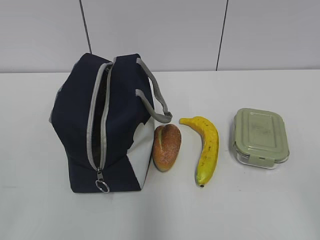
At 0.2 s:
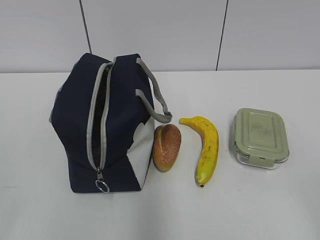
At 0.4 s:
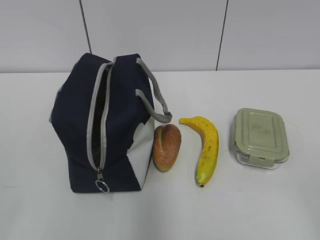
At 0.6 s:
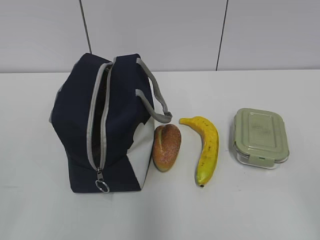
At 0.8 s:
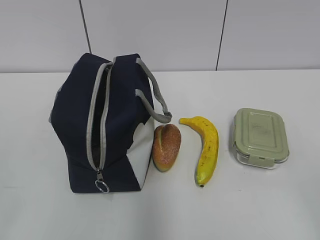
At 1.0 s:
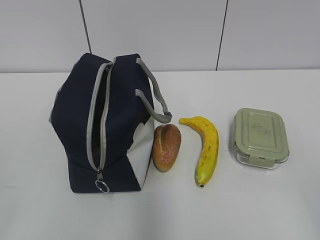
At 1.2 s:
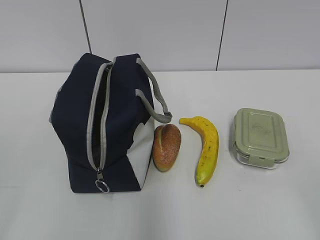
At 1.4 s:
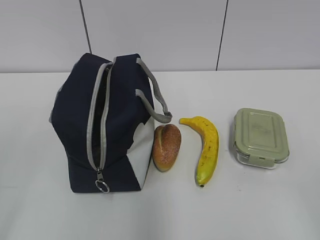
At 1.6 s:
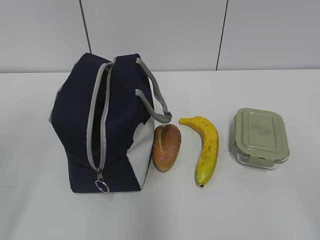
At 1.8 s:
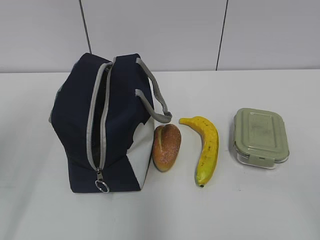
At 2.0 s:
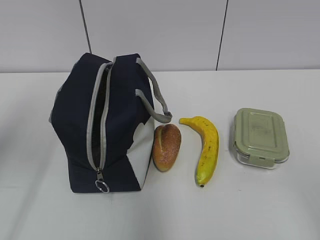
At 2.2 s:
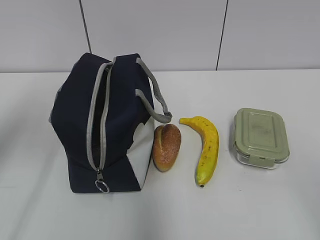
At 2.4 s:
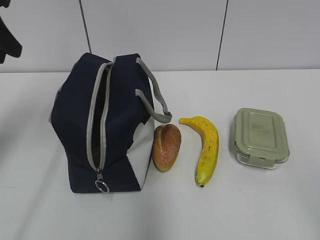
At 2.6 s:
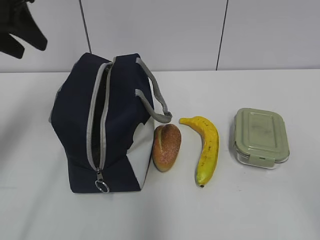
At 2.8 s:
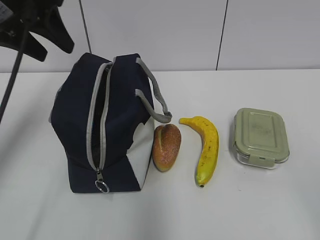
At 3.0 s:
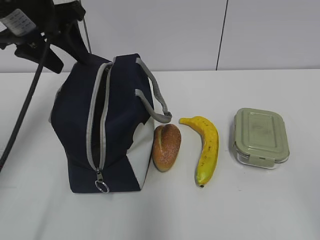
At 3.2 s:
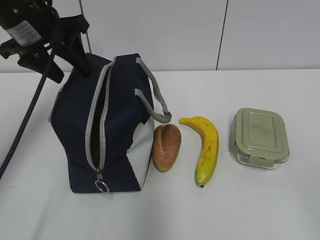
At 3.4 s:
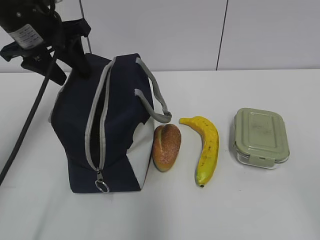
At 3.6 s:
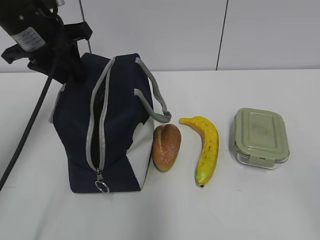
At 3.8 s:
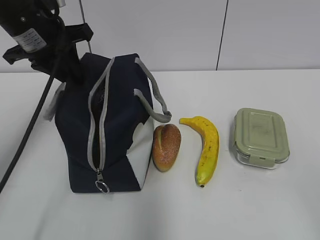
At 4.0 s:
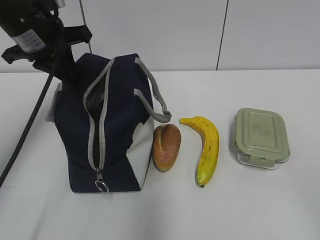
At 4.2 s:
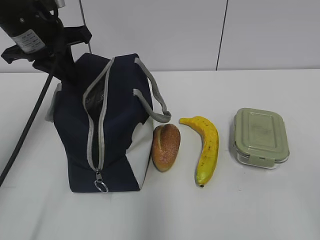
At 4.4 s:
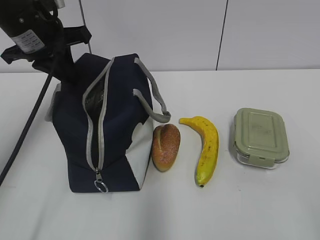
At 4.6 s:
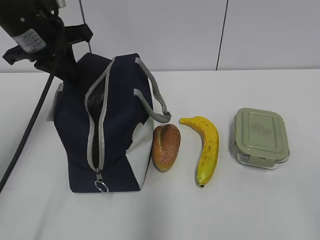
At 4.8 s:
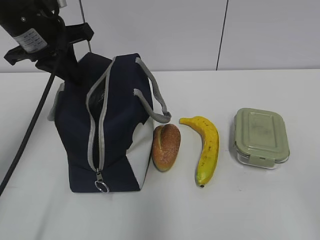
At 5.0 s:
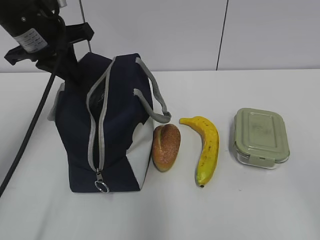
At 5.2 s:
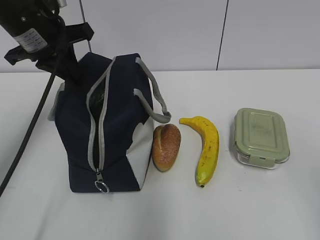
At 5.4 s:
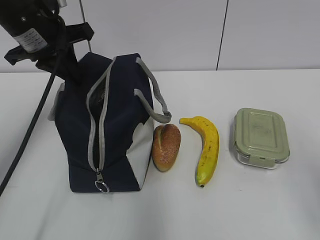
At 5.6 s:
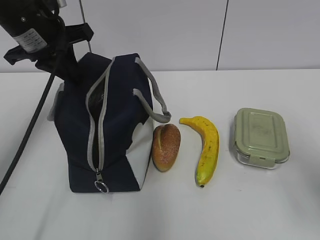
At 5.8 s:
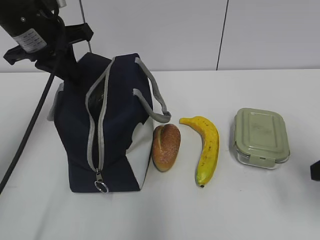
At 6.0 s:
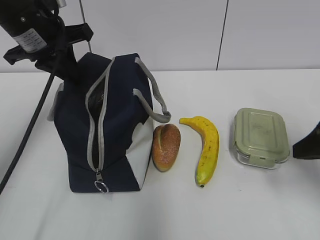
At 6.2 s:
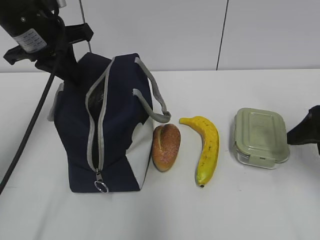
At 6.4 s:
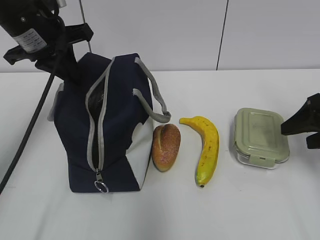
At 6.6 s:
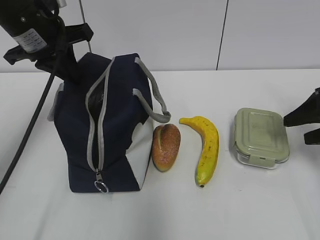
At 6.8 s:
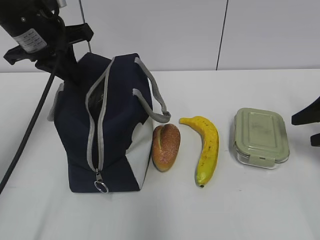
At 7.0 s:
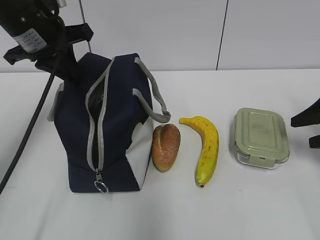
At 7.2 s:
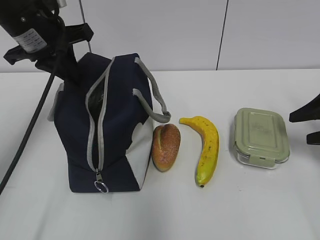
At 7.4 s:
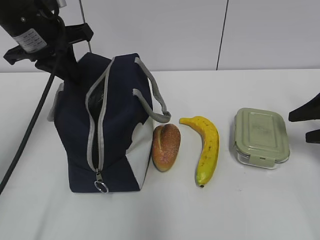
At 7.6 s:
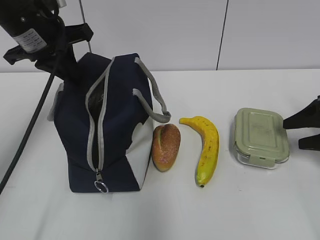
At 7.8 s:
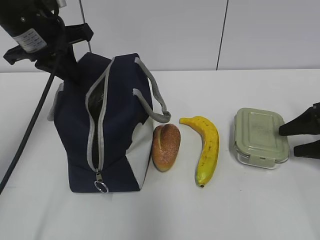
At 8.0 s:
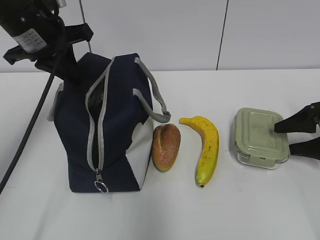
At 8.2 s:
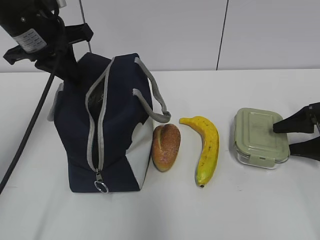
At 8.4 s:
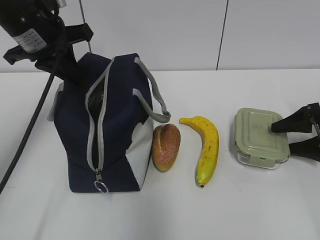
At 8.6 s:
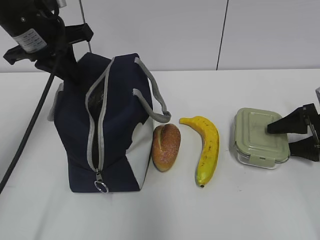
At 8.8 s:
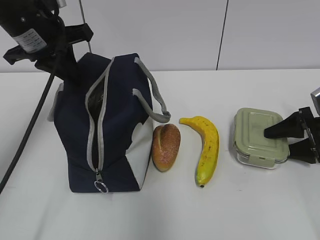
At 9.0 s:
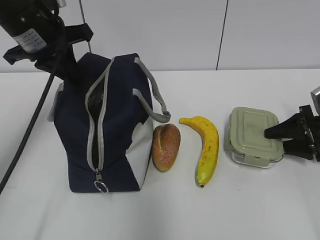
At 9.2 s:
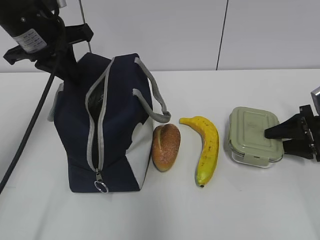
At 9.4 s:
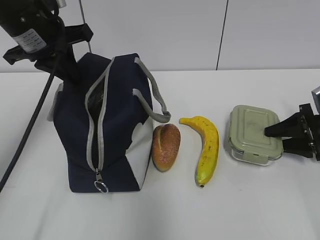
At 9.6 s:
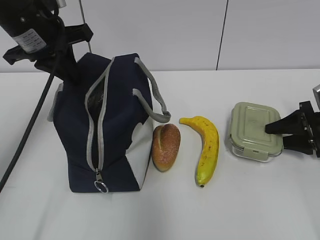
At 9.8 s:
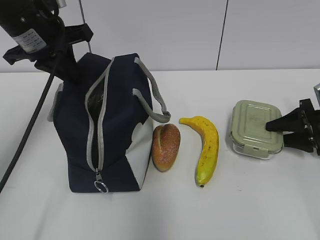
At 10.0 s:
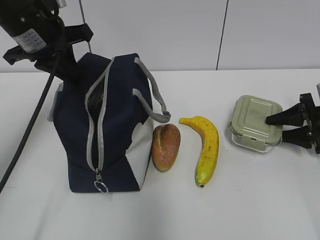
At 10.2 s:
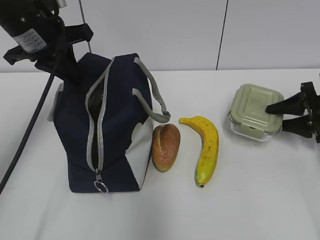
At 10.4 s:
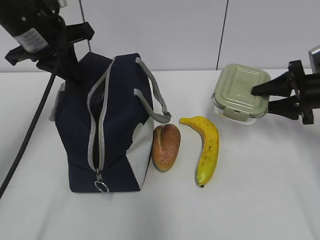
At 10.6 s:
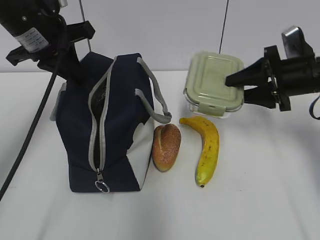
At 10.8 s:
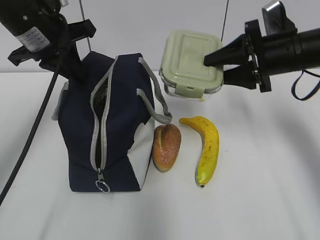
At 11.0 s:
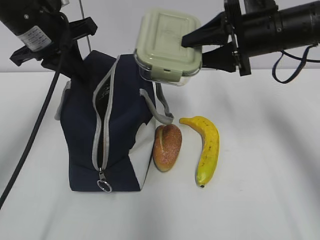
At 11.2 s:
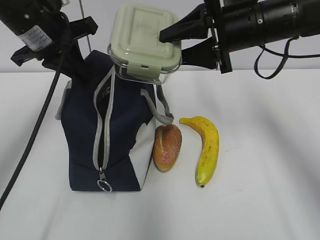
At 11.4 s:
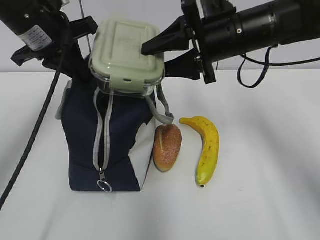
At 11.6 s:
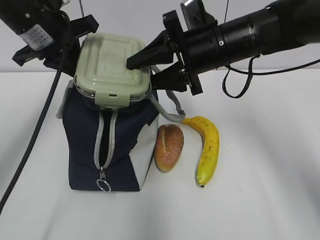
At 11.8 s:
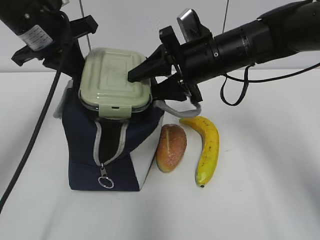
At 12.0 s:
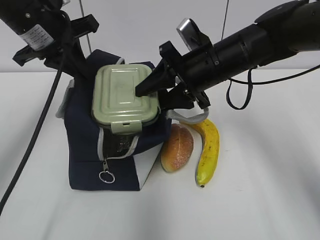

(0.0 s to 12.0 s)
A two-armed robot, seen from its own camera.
1.6 s - 3.0 s: The left gripper goes roughly 25 cm forward, and opens up.
3.0 s - 4.4 s: The left gripper closes.
4.4 s - 6.0 s: The right gripper goes approximately 20 cm forward.
6.0 s - 7.6 s: The right gripper moves forward, to the right and downward, about 15 cm.
7.6 s - 9.0 s: The right gripper travels downward by roughly 5 cm.
9.0 s - 10.4 s: The right gripper is displaced upward by approximately 5 cm.
10.4 s - 12.0 s: The right gripper heads to the left, covering some 20 cm.

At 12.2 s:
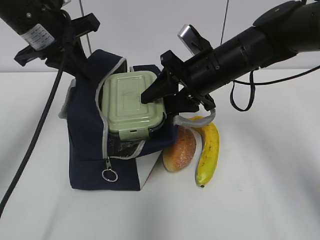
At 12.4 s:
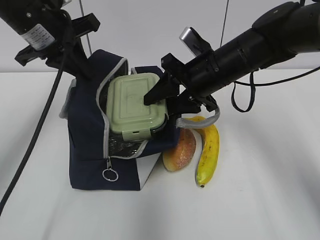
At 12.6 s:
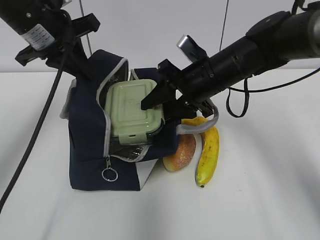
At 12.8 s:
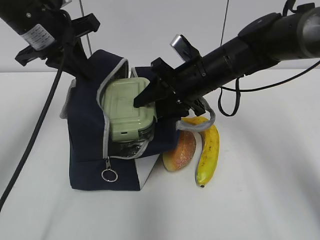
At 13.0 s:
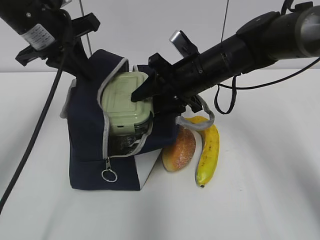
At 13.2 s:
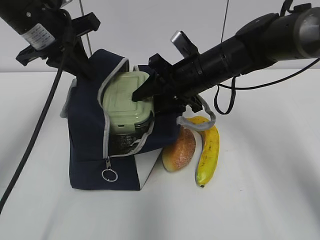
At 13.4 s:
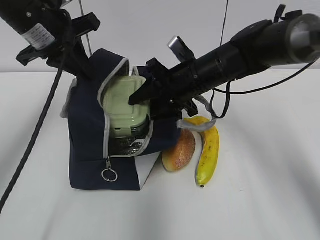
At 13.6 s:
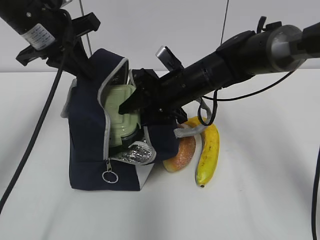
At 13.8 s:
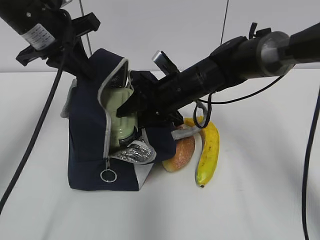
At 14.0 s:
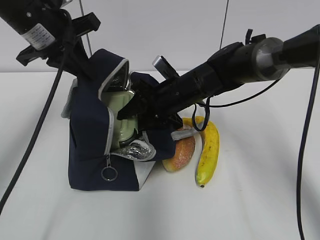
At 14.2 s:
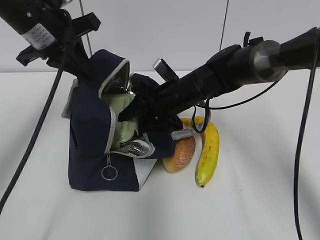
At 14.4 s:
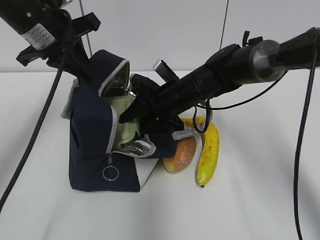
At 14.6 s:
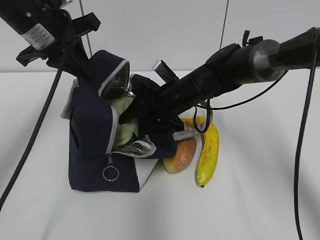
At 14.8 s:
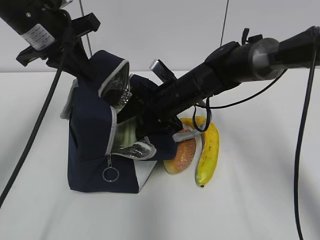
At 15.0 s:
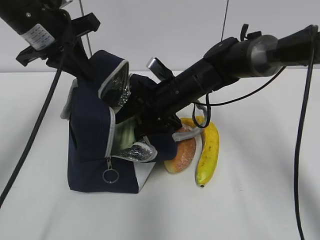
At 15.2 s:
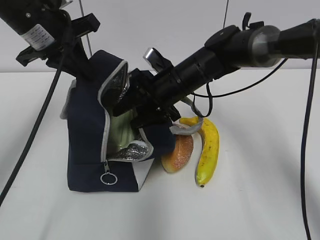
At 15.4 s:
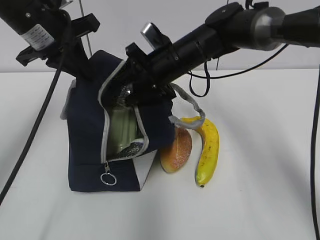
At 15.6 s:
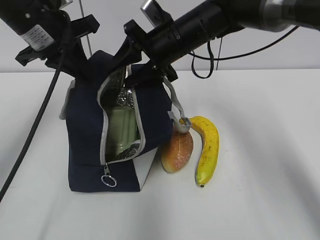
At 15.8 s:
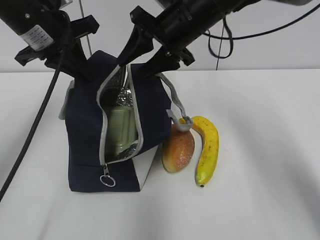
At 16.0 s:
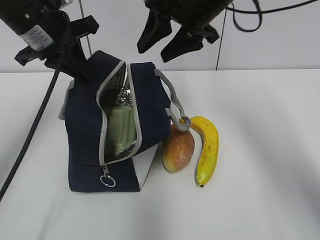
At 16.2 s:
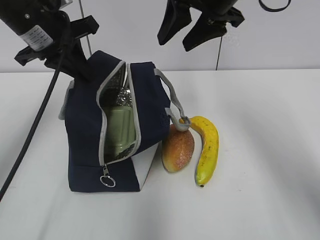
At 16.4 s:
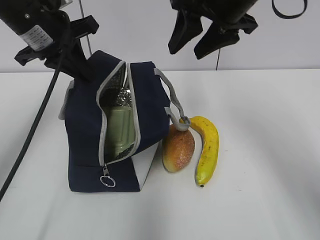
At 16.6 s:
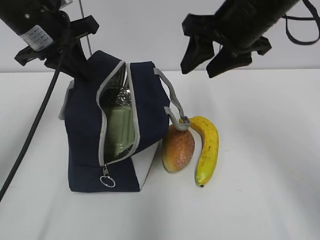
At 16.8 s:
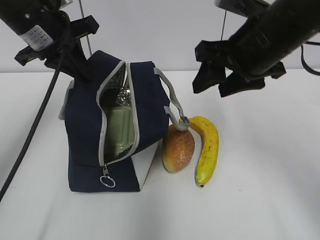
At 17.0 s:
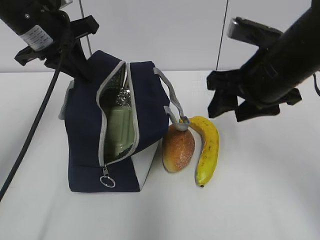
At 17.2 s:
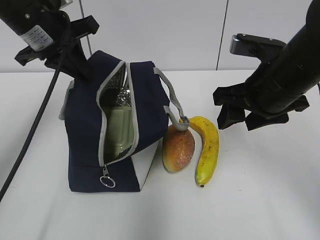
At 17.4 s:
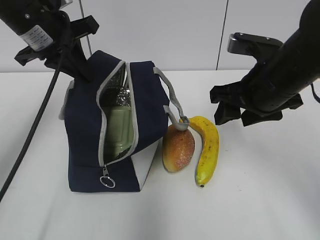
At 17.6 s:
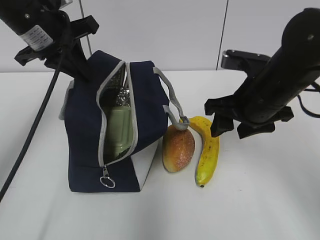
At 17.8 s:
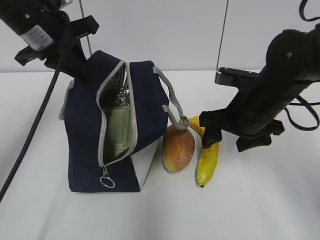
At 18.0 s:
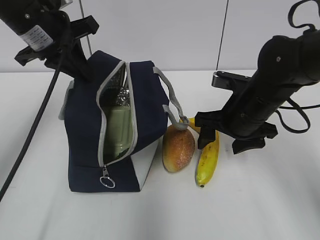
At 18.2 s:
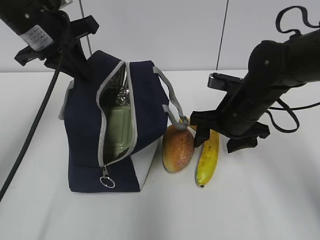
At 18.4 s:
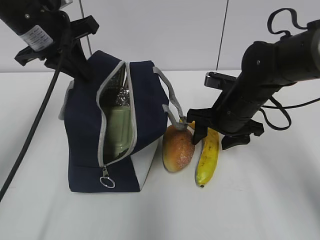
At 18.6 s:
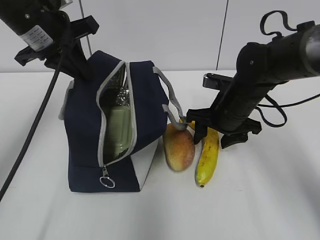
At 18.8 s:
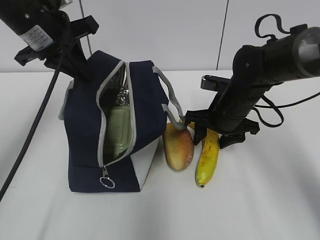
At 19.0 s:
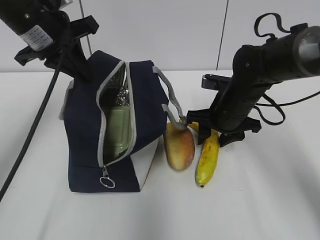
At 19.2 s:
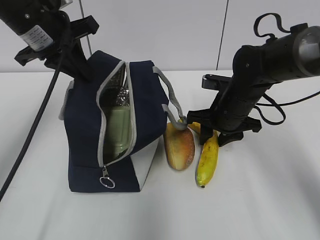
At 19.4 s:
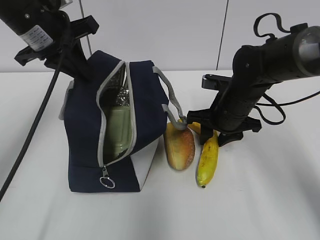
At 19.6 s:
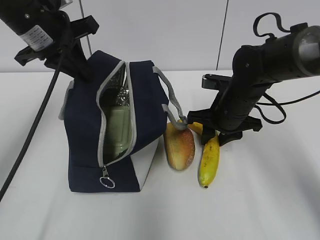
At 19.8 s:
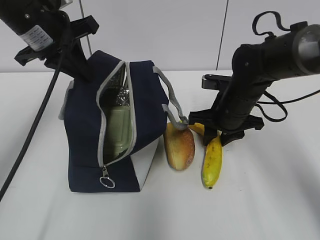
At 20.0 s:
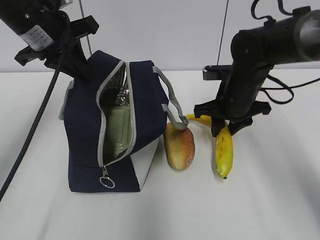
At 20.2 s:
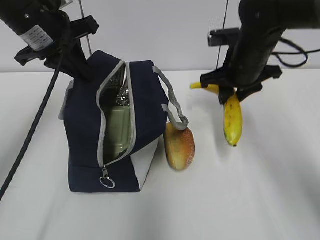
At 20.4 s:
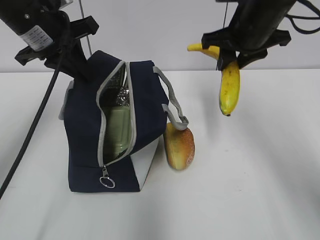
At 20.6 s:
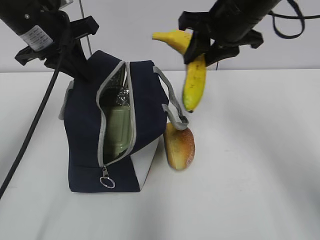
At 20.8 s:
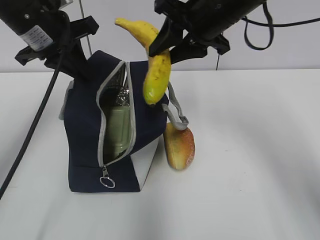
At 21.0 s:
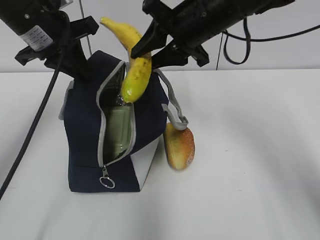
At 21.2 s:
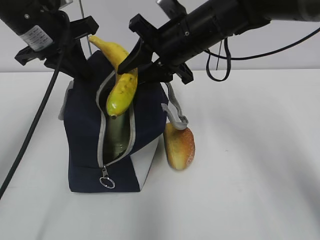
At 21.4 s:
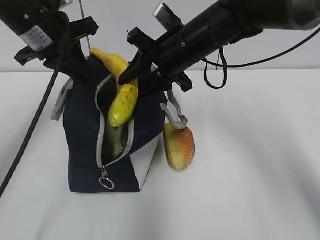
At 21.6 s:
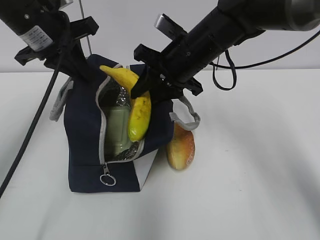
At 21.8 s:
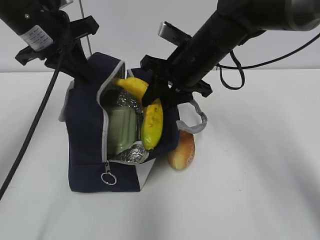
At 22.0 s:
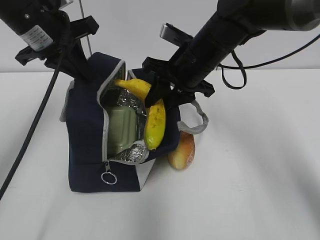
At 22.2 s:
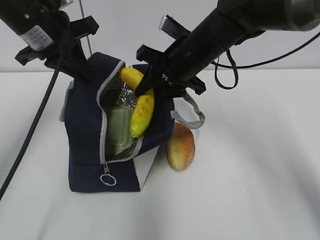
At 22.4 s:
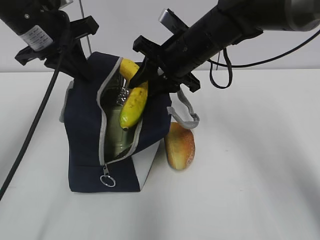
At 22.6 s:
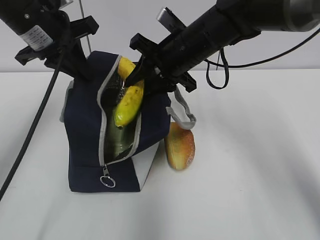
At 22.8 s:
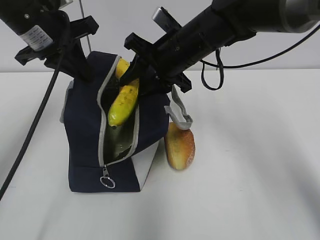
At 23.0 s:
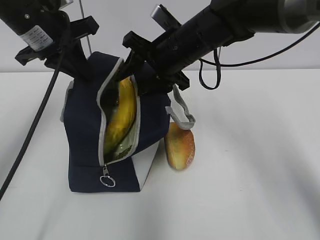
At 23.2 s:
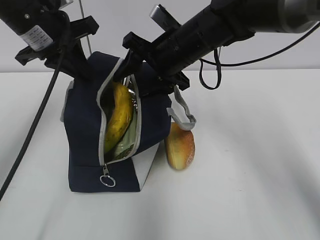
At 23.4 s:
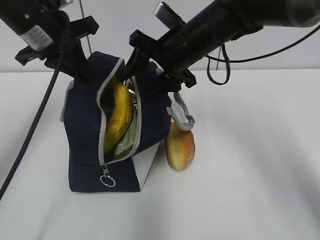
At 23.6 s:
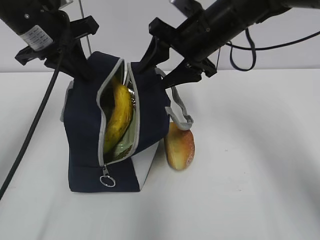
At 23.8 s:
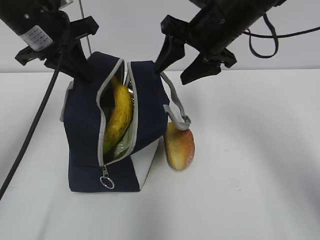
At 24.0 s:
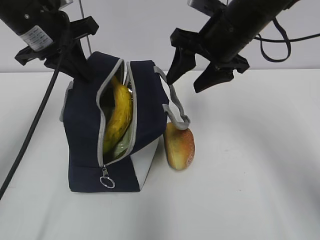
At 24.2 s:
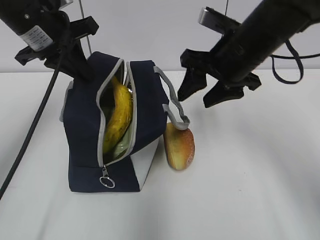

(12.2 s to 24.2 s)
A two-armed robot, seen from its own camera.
12.2 s - 13.8 s: The right gripper moves downward, approximately 5 cm.
13.8 s - 15.2 s: There are only small adjustments of the grippers.
15.2 s - 16.6 s: The right gripper heads upward, to the right and backward, covering about 20 cm.
16.6 s - 18.2 s: The right gripper moves downward, about 15 cm.
18.2 s - 19.8 s: The right gripper closes up.
19.8 s - 21.2 s: The right gripper shifts some 15 cm upward and to the left.
21.2 s - 22.6 s: The grippers move only a little.
22.6 s - 24.2 s: The right gripper heads to the right, covering about 5 cm.
